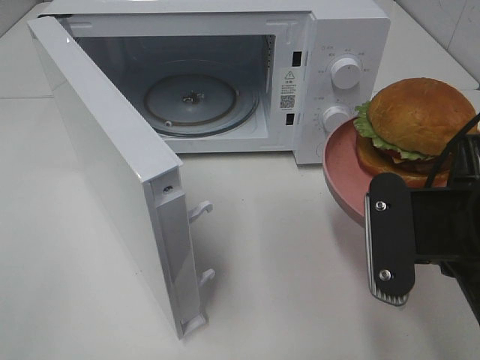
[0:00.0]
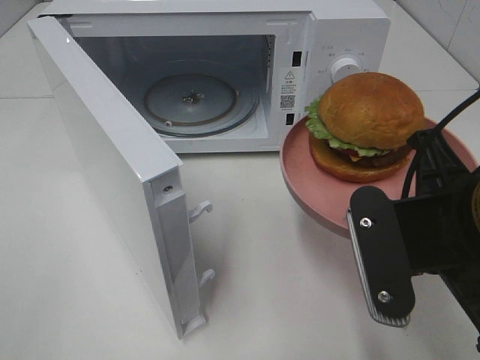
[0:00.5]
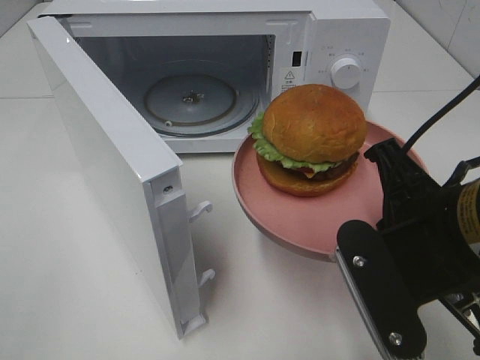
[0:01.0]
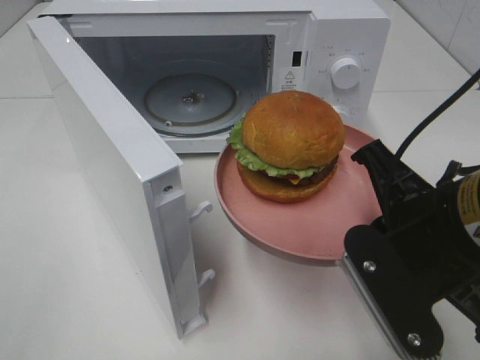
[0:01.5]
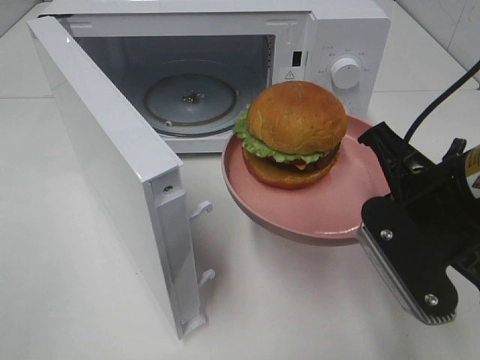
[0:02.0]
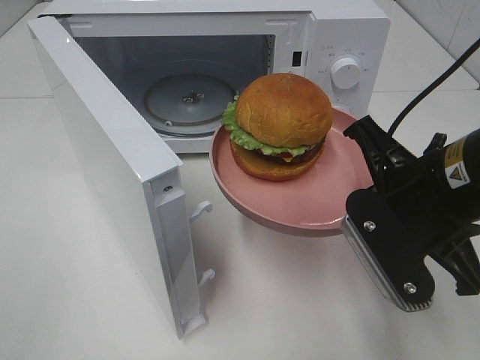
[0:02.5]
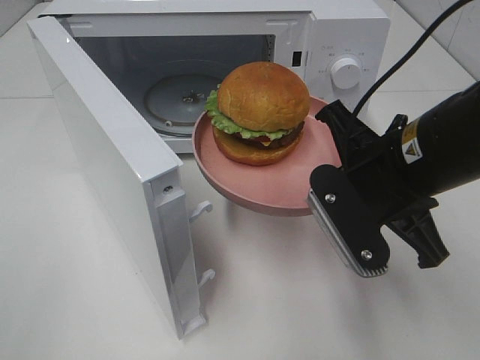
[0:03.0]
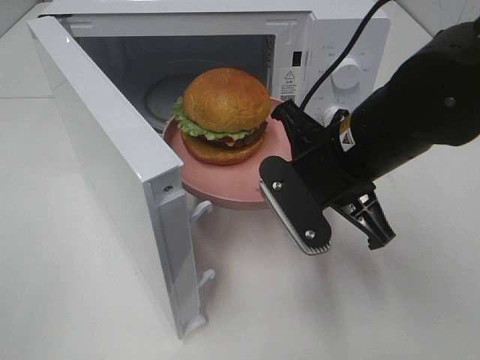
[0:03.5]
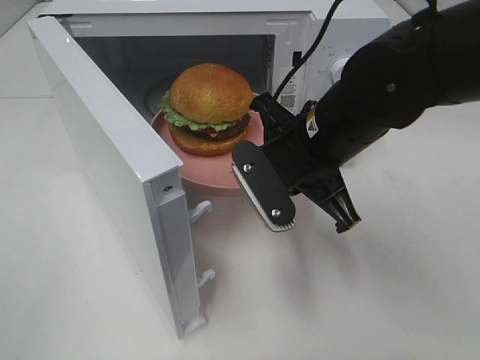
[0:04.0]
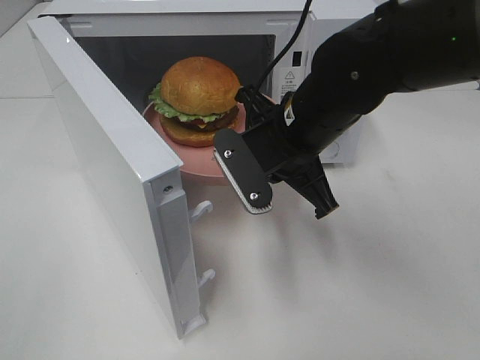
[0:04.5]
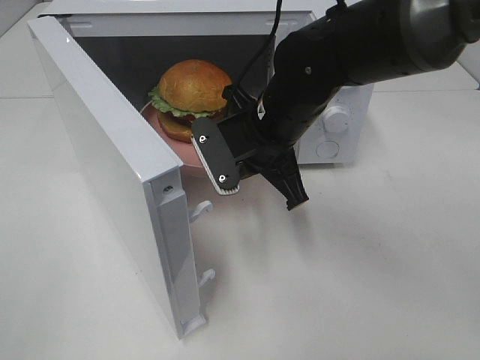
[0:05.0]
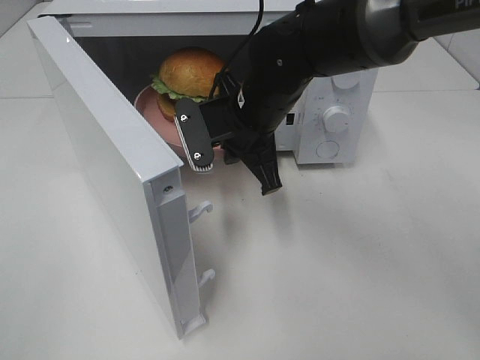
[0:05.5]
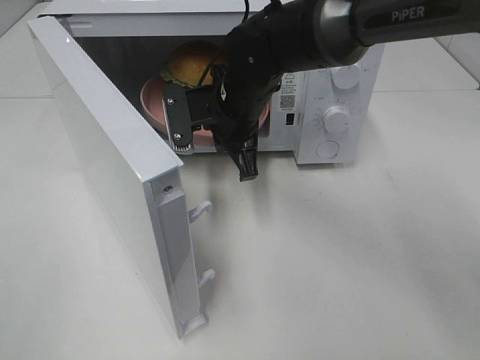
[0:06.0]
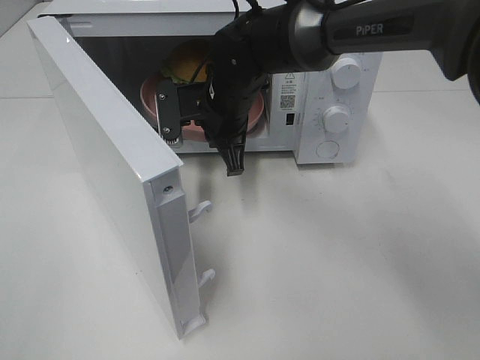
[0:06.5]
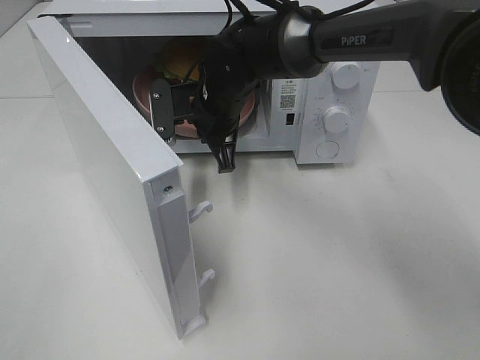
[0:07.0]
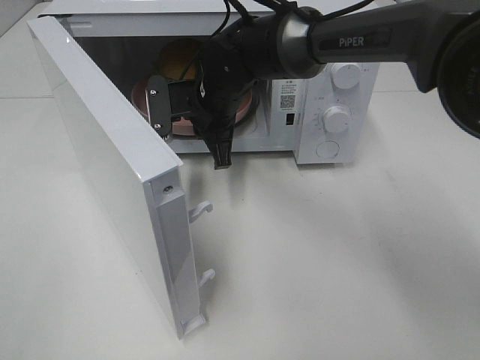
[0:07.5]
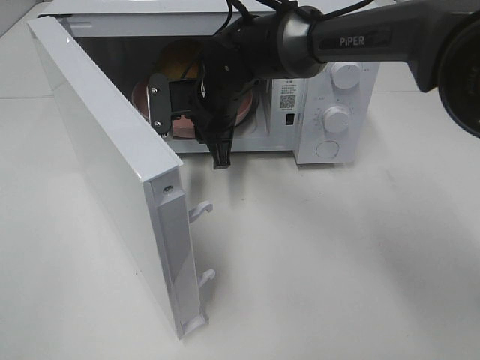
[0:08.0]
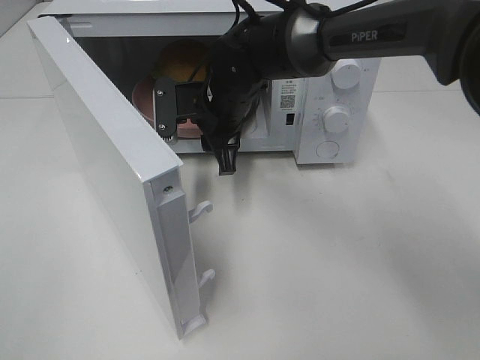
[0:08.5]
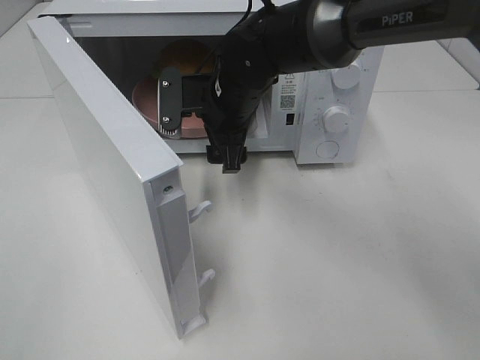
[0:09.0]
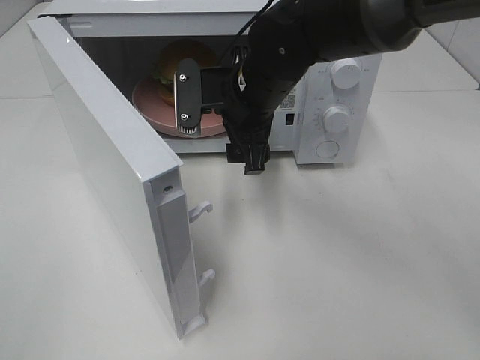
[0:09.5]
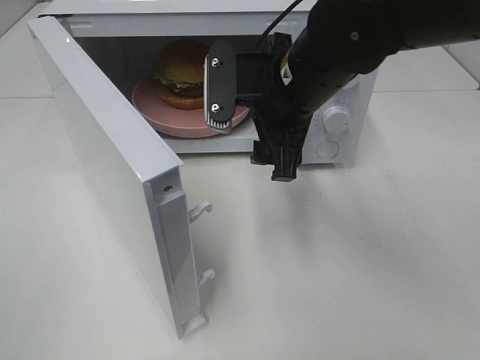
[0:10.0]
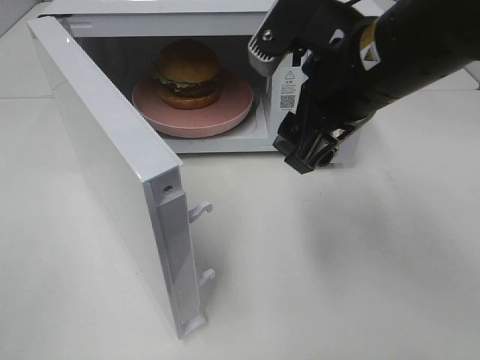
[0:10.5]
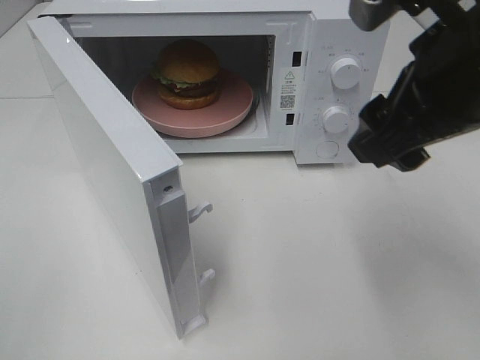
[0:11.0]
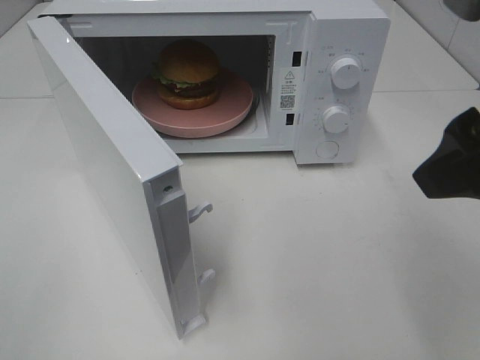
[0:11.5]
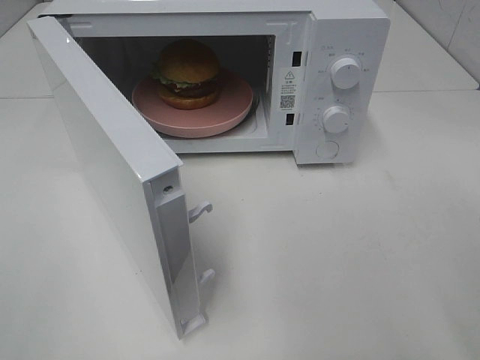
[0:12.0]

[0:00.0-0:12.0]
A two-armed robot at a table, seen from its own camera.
Task of the whole recording: Heat the burger.
Step, 0:00.0 to 0:07.5: Right hand: place the plate in the microwave.
0:02.0 to 0:04.0: The right gripper is displaced forward and to the left by about 10 cm.
0:04.0 to 0:06.0: The right gripper is displaced forward and to the left by roughly 15 cm.
0:06.0 to 0:08.0: There are only small adjustments of the grippers.
0:08.0 to 0:10.0: The right gripper moves backward, to the right and upward, approximately 15 cm, and opens.
0:10.0 to 0:12.0: The right gripper heads backward, to the right and upward, covering approximately 25 cm.

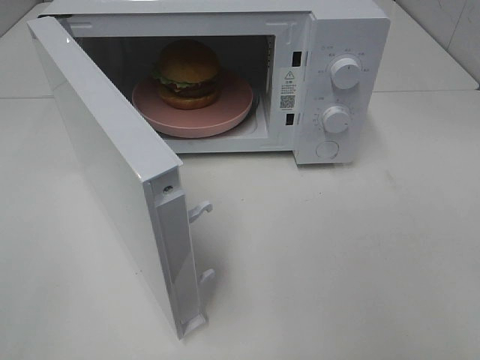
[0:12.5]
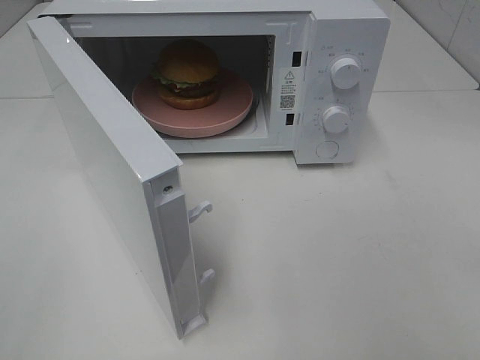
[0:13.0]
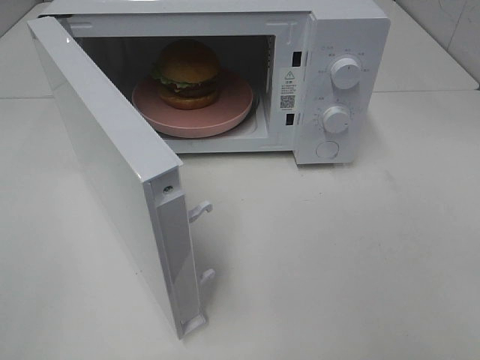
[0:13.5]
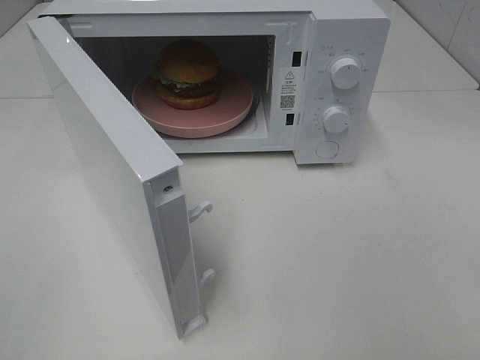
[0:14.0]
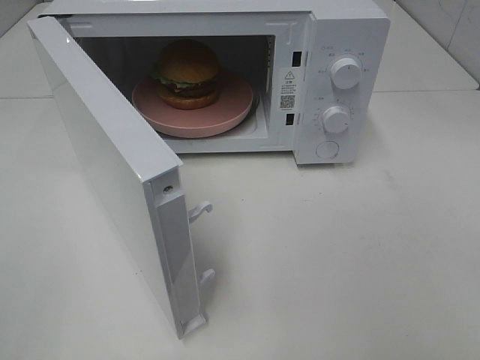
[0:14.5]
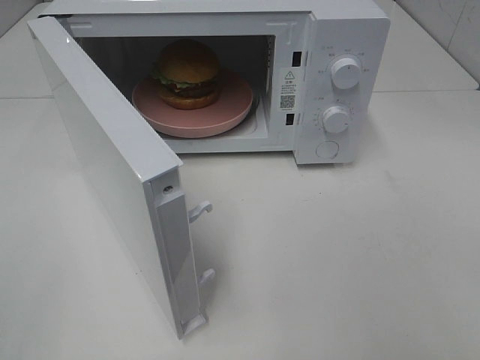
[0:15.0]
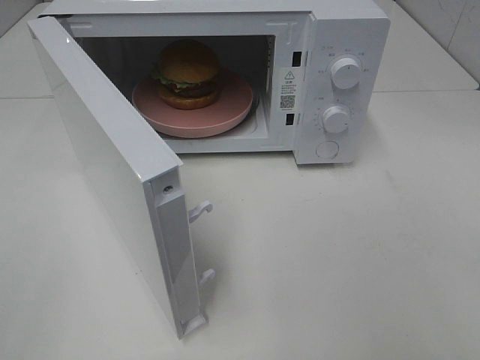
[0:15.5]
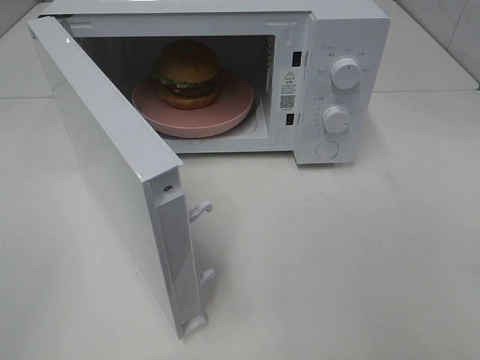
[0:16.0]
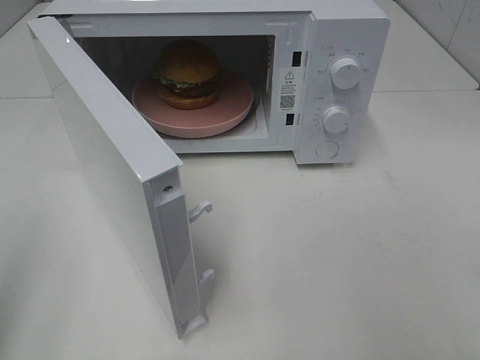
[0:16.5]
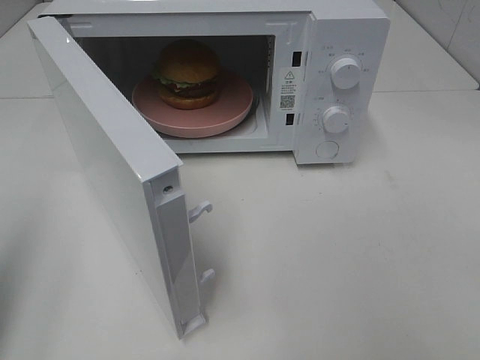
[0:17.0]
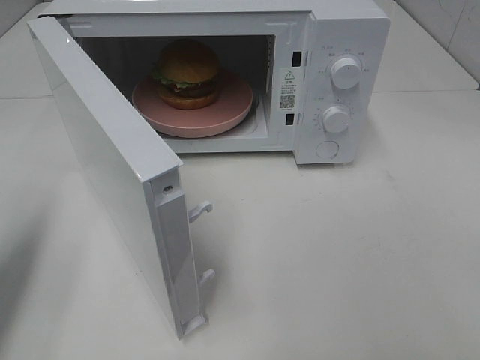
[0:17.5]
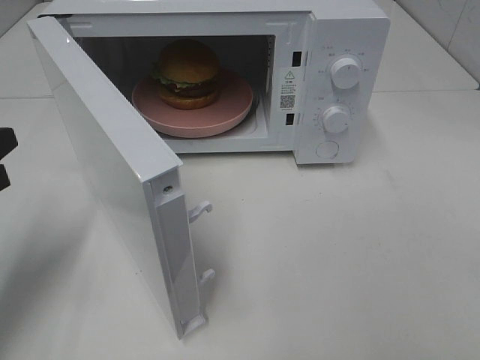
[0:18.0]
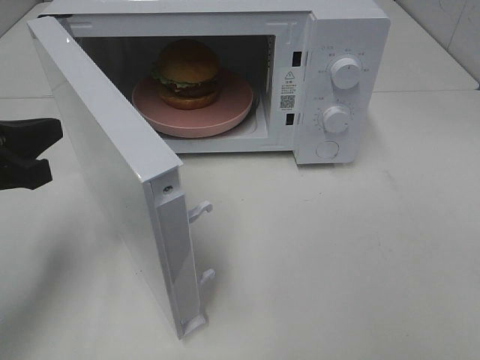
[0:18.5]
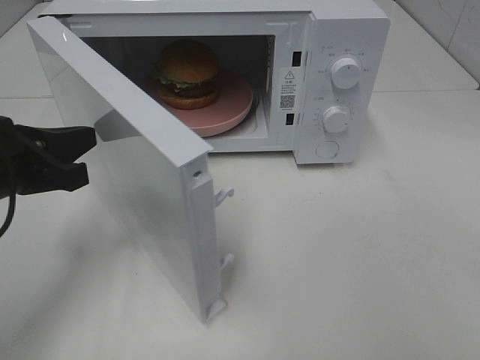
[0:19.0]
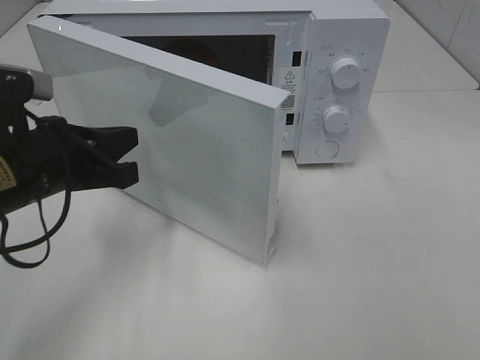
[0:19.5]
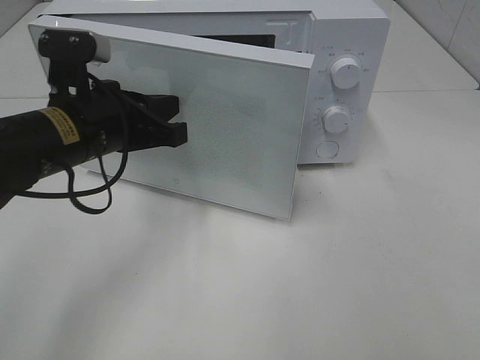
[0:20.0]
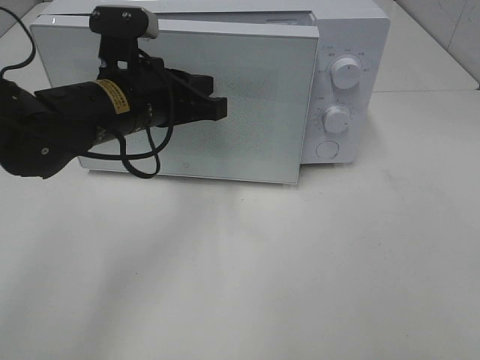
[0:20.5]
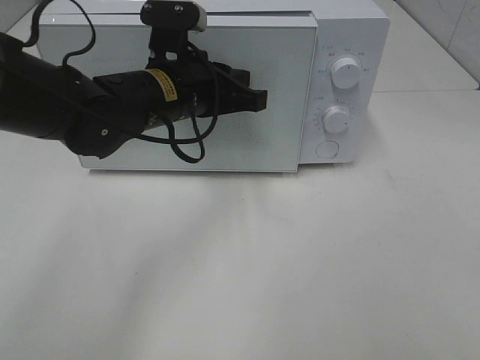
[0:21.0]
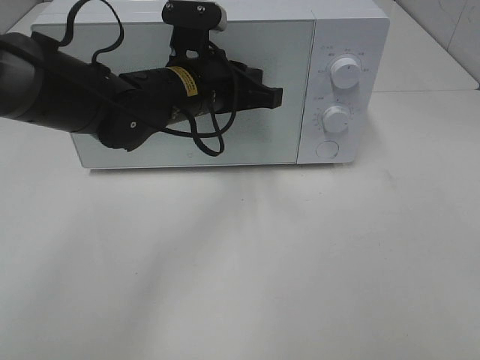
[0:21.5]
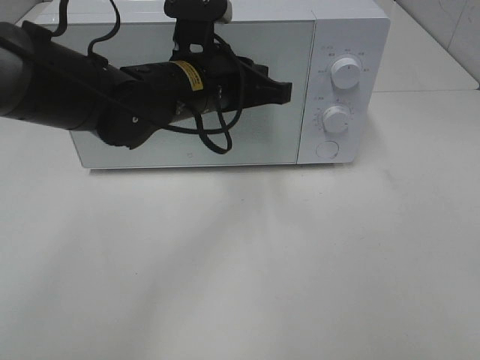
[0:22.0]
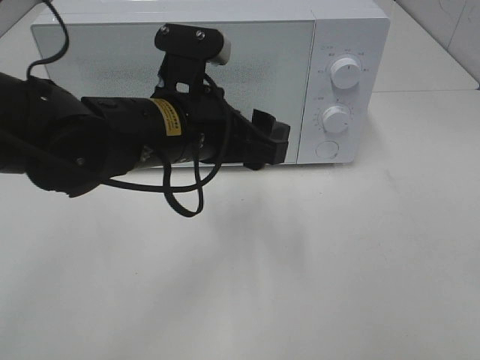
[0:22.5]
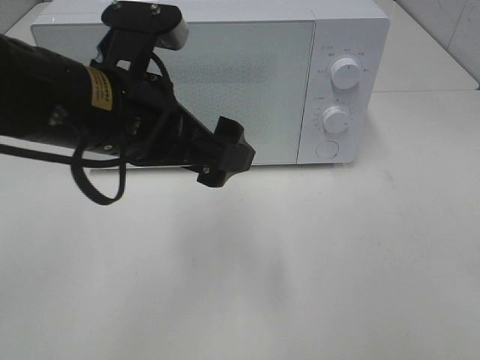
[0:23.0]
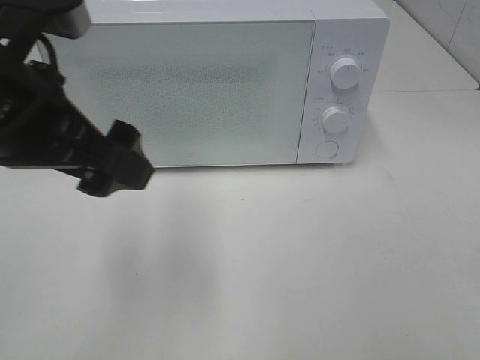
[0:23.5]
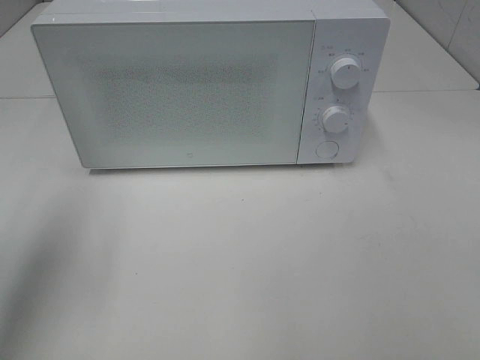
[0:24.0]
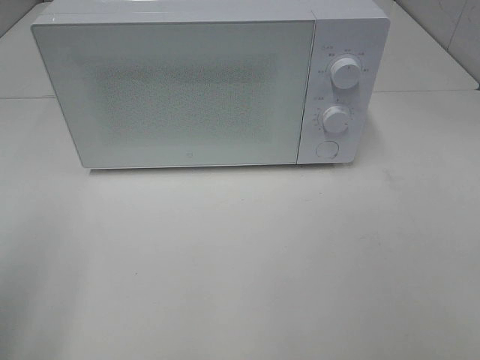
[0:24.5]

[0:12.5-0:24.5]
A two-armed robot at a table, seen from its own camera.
Task of the whole recording: Heat the burger.
Step, 0:12.5 to 0:22.0: Left hand: close the microwave door.
0:16.5 to 0:18.5: The left gripper shifts roughly 20 cm forward, downward and to the right.
0:18.5 to 0:20.5: The left gripper travels to the right and forward by roughly 20 cm.
0:20.5 to 0:22.5: The left gripper moves backward and to the right, approximately 10 cm, and opens.
0:22.5 to 0:24.5: The left gripper travels to the left and backward by approximately 30 cm.

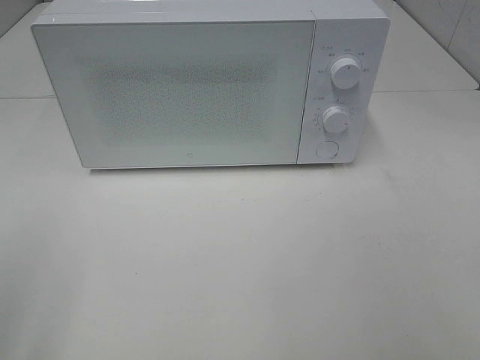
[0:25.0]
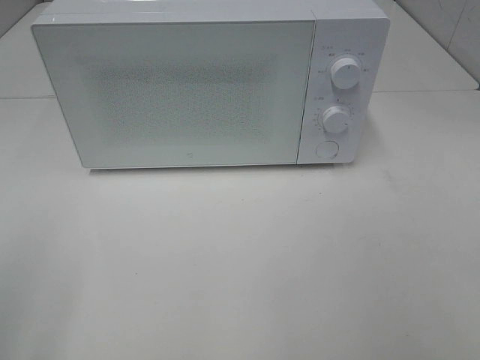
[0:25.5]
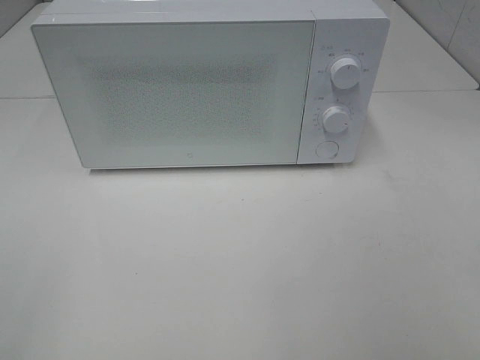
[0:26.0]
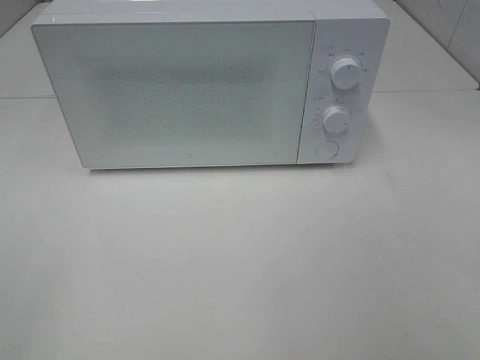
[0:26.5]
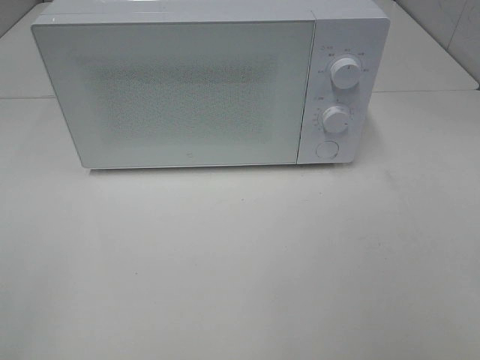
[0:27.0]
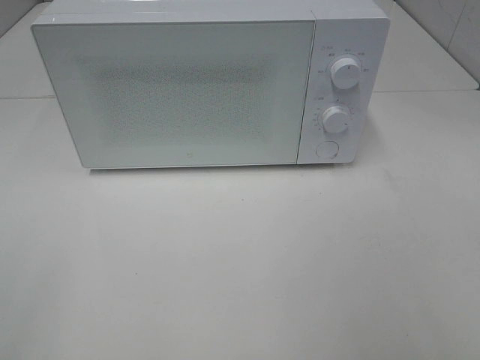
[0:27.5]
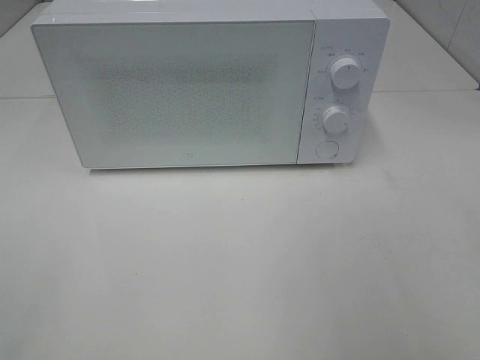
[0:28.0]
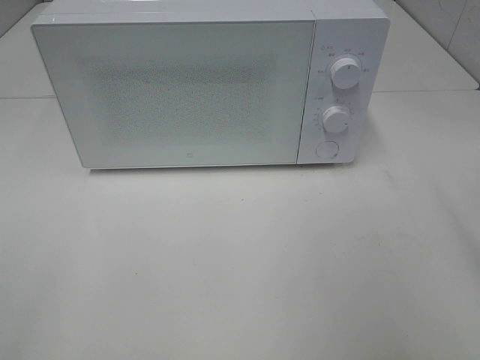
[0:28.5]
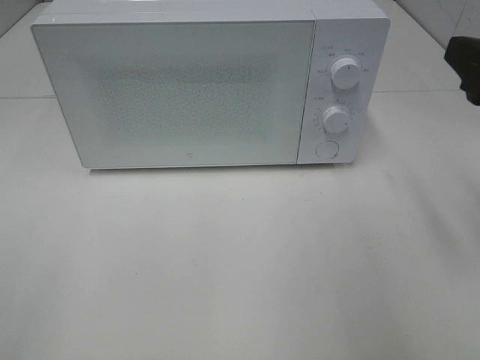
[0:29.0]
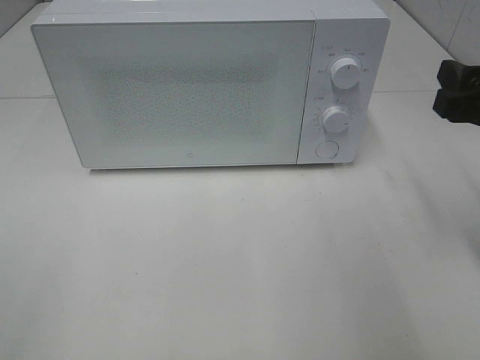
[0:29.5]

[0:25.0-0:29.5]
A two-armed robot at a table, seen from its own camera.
Task of the whole recording: Heat the burger.
0:27.0 to 0:29.5: The right gripper heads forward, covering about 20 cm.
